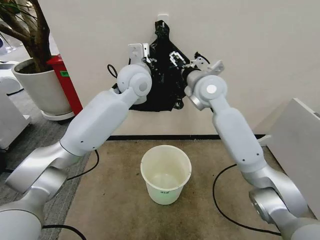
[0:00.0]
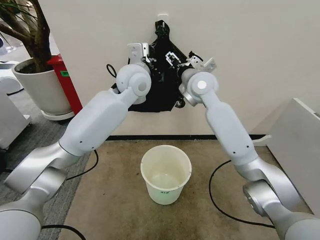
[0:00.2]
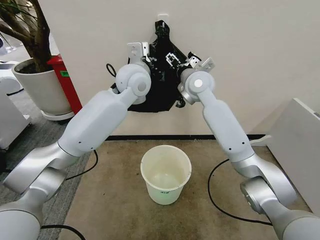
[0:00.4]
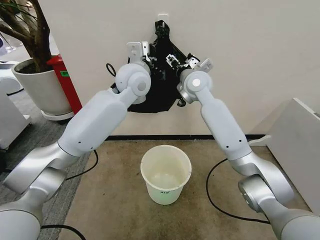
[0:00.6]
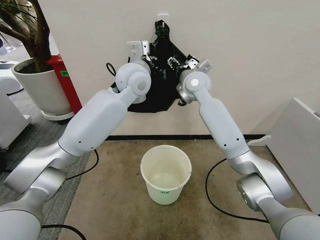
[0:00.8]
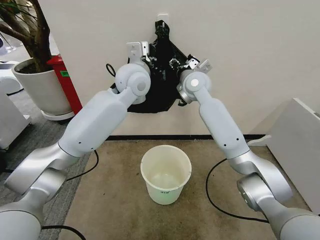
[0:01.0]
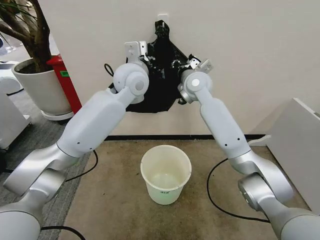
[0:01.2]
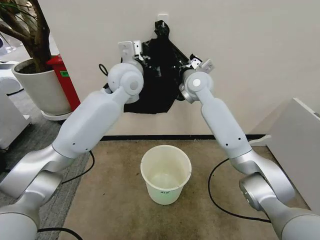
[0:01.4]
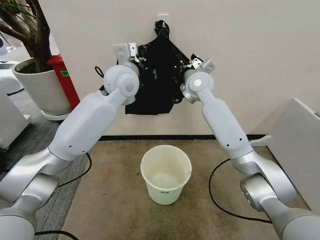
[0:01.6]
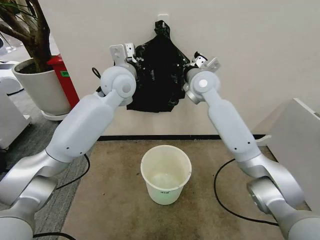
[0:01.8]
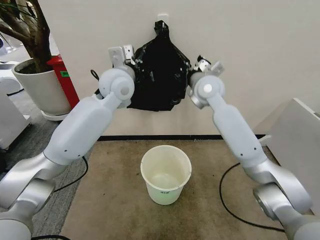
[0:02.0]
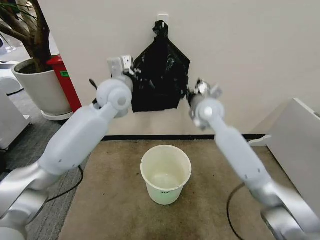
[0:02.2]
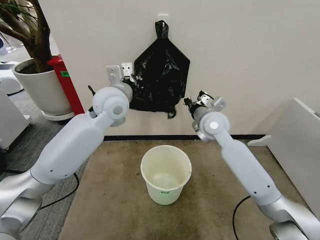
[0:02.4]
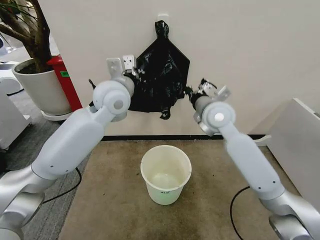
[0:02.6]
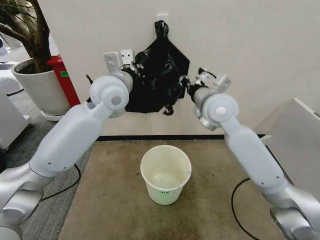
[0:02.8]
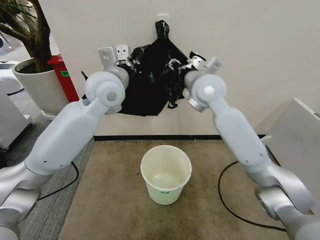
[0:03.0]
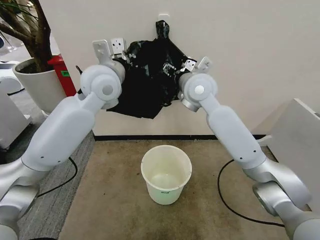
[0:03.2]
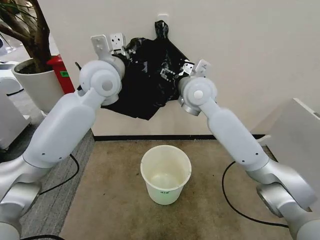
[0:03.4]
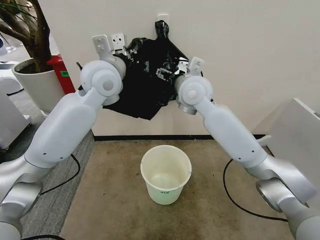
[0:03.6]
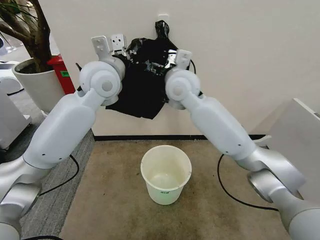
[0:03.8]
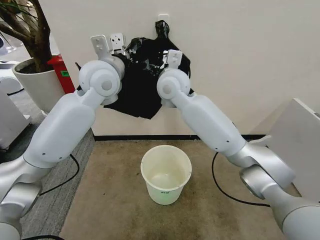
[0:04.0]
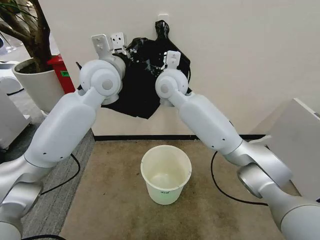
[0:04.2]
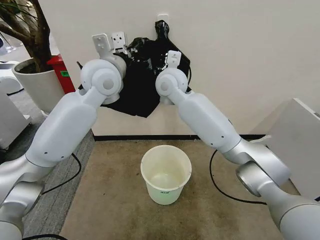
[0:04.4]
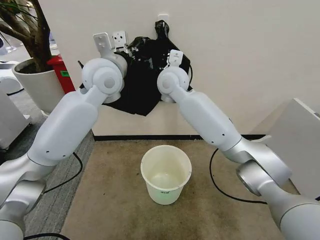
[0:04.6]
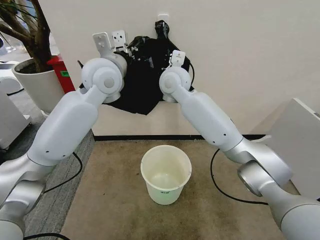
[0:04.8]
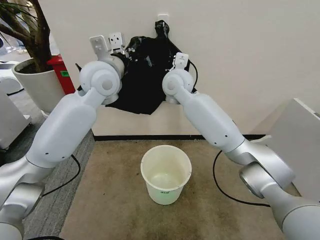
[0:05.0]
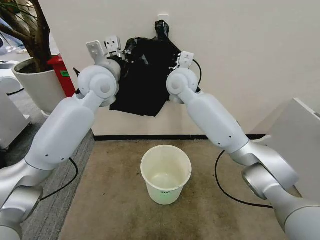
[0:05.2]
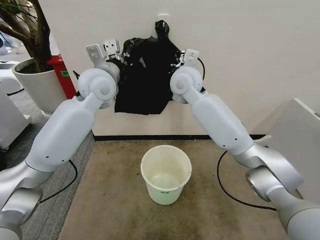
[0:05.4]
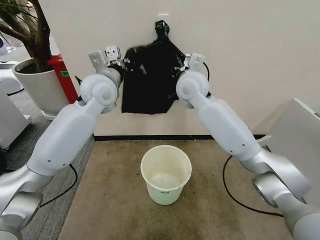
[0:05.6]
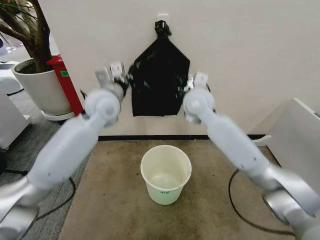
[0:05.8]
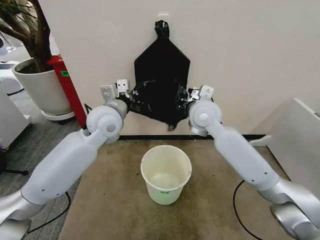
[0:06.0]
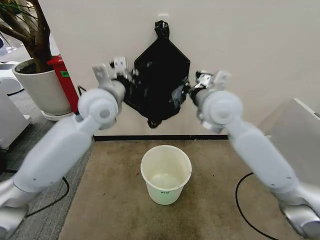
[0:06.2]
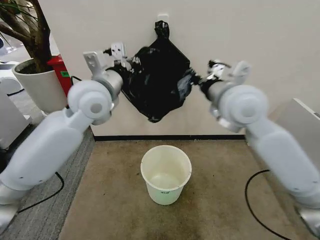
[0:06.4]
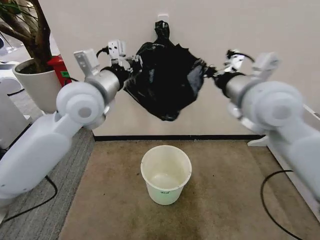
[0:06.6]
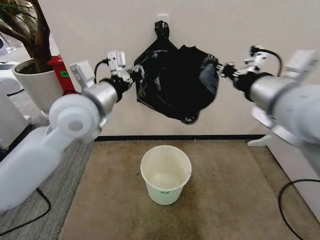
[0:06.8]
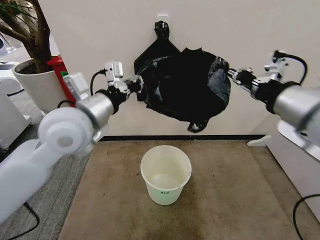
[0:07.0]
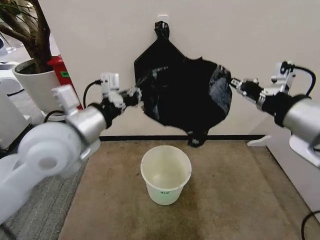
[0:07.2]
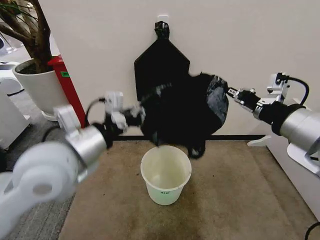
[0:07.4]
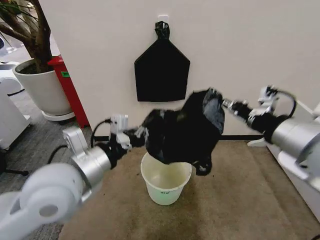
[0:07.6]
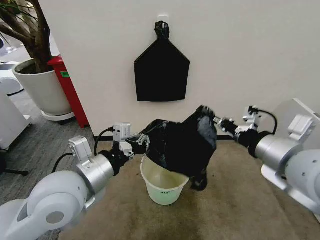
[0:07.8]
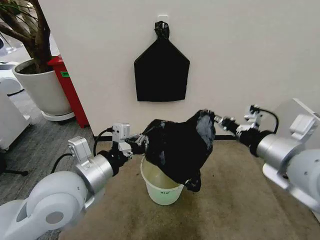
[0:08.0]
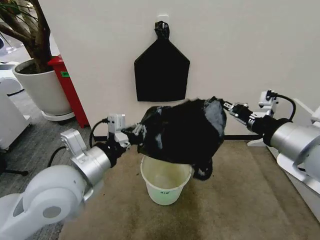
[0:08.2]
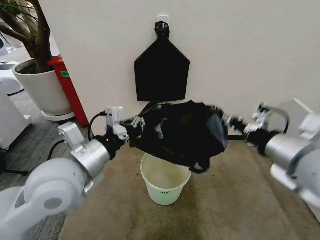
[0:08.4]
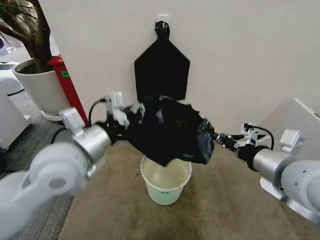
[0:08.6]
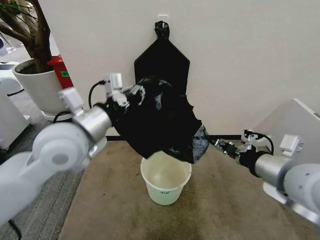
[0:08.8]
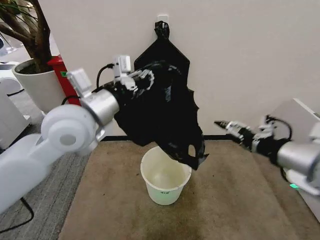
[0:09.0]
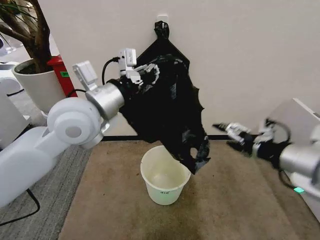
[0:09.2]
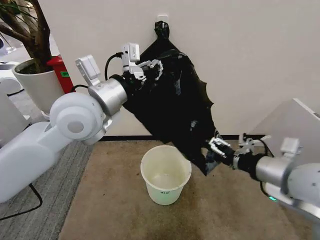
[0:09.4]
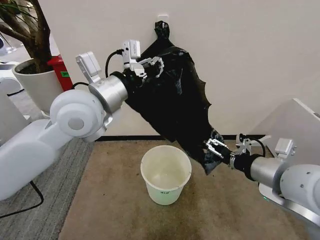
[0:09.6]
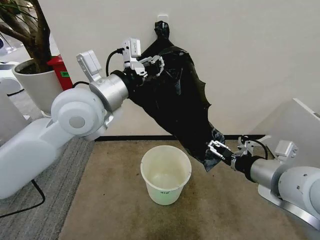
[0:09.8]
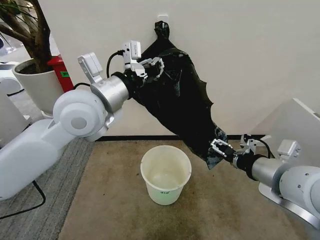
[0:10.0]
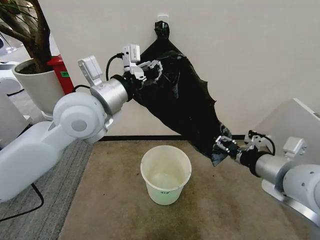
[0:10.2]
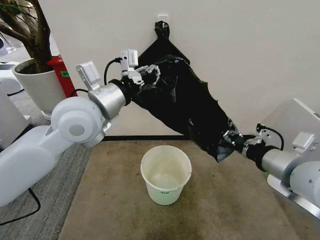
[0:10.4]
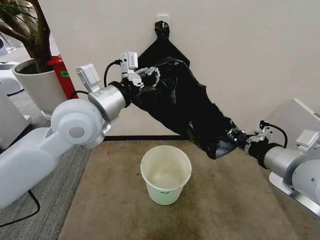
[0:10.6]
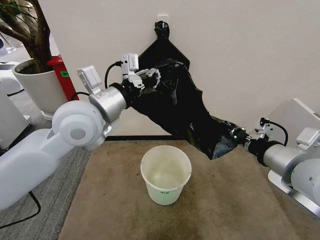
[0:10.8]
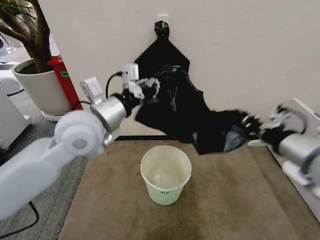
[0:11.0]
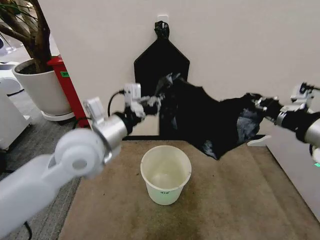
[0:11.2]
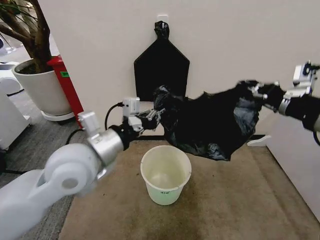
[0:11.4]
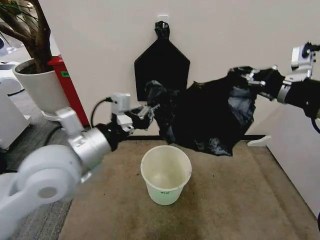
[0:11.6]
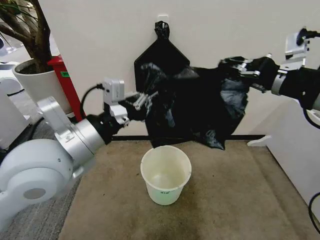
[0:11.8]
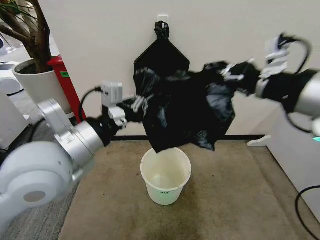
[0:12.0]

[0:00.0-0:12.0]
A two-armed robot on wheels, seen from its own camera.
Task of the whole recording: Place the garbage bag over the trash bin.
0:00.0 to 0:01.6: The right gripper moves forward, some 5 cm, and closes its fingers.
0:01.6 to 0:03.0: The right gripper heads backward, covering approximately 10 cm, and opens its fingers, while the left gripper shifts by about 5 cm.
0:03.0 to 0:04.4: The right gripper heads to the left, covering about 10 cm, and opens and closes again.
0:04.4 to 0:06.0: The left gripper goes some 10 cm downward. Meanwhile the right gripper heads to the right, downward and backward, covering approximately 15 cm, and closes up.
0:06.0 to 0:07.6: The right gripper moves backward and to the right, approximately 25 cm. Meanwhile the left gripper heads backward, covering approximately 20 cm.
0:07.6 to 0:09.0: The right gripper opens up, while the left gripper moves forward and upward, approximately 10 cm.
0:09.0 to 0:10.4: The right gripper opens, then closes once more.
0:10.4 to 0:12.0: The left gripper goes approximately 10 cm backward; the right gripper moves upward, about 15 cm, and closes its fingers.

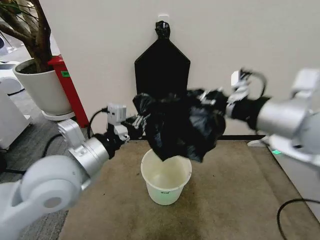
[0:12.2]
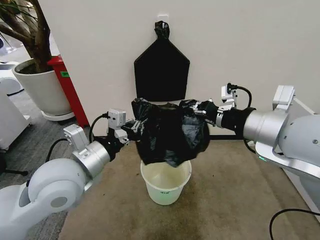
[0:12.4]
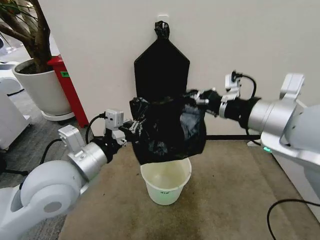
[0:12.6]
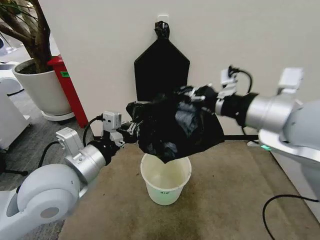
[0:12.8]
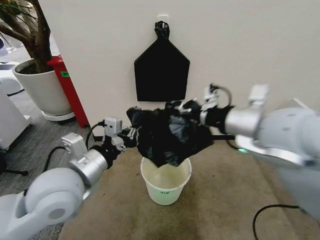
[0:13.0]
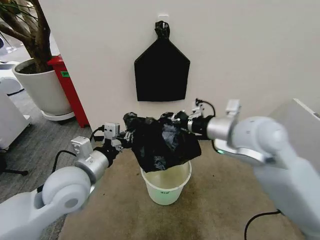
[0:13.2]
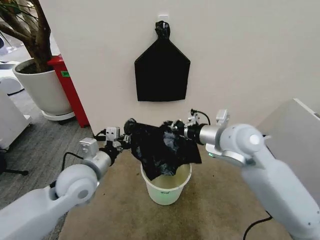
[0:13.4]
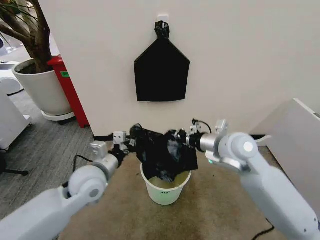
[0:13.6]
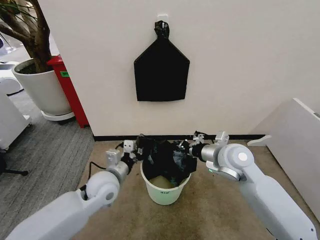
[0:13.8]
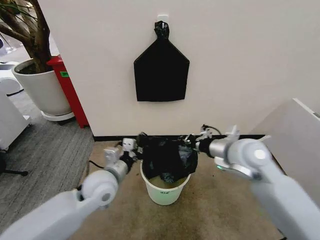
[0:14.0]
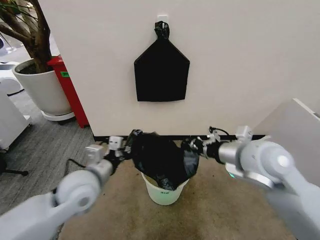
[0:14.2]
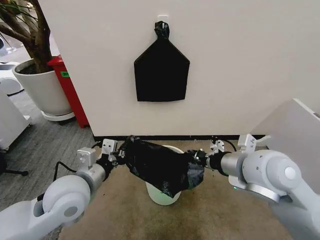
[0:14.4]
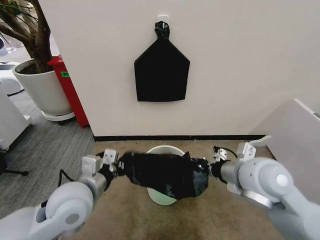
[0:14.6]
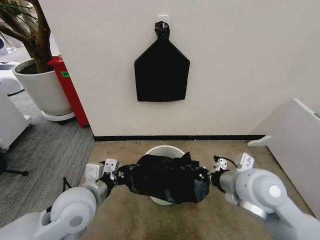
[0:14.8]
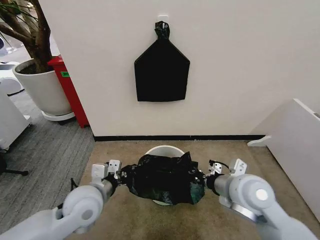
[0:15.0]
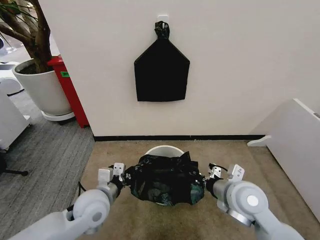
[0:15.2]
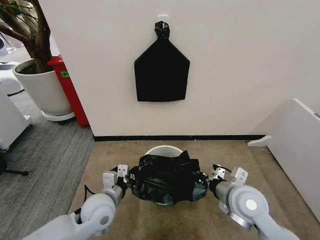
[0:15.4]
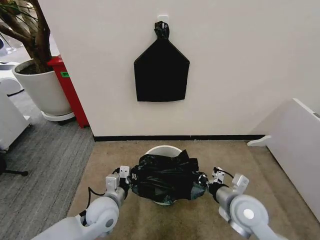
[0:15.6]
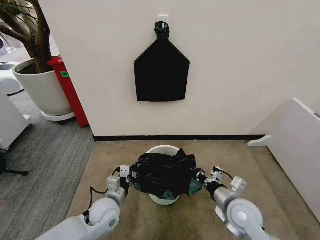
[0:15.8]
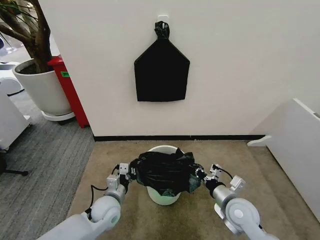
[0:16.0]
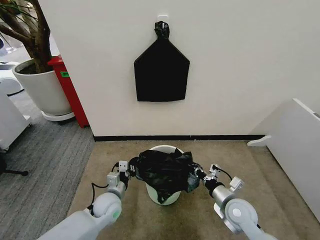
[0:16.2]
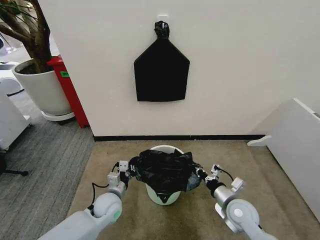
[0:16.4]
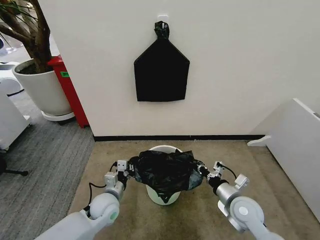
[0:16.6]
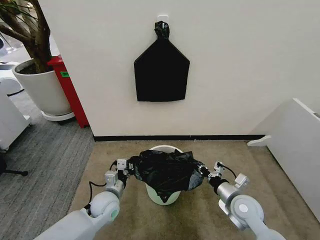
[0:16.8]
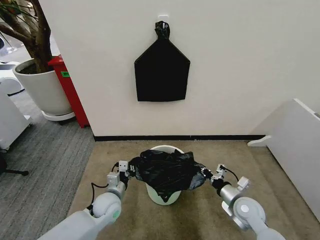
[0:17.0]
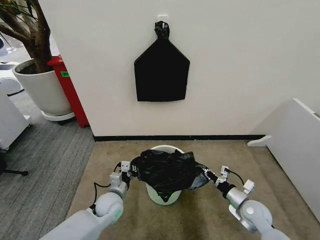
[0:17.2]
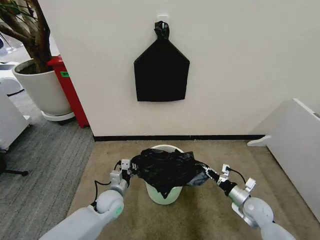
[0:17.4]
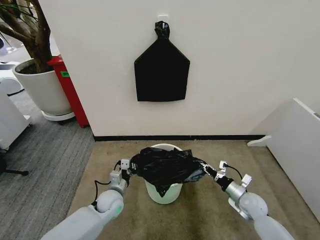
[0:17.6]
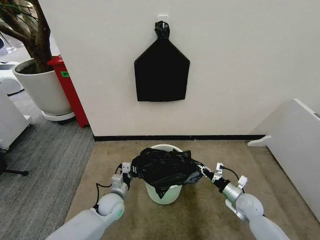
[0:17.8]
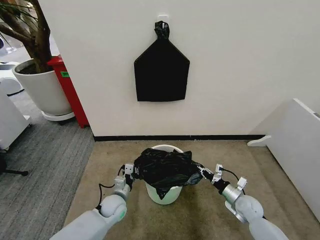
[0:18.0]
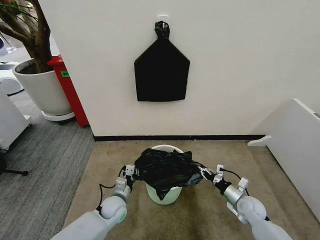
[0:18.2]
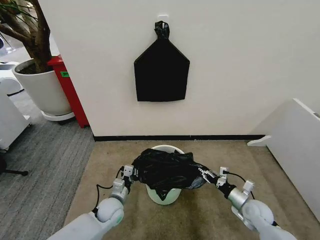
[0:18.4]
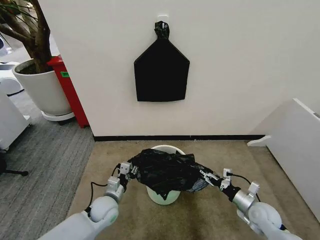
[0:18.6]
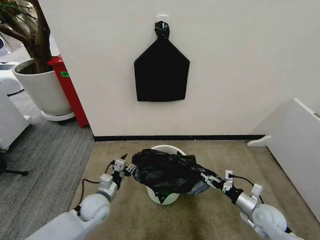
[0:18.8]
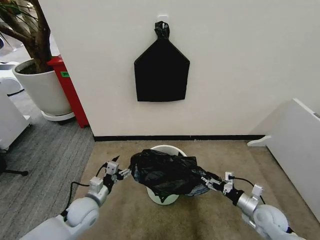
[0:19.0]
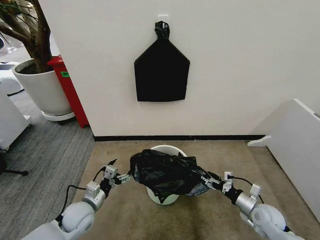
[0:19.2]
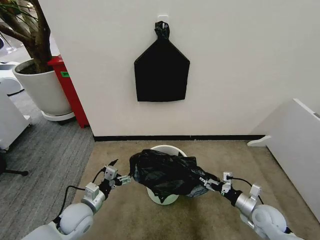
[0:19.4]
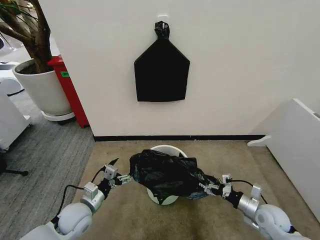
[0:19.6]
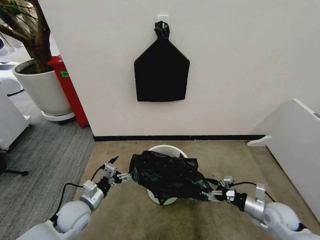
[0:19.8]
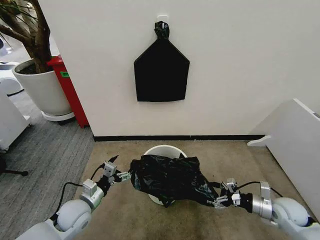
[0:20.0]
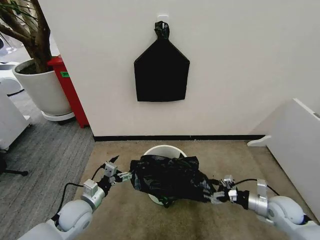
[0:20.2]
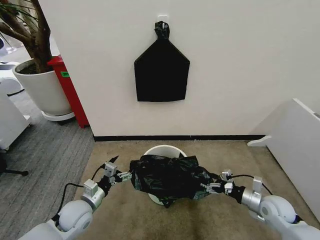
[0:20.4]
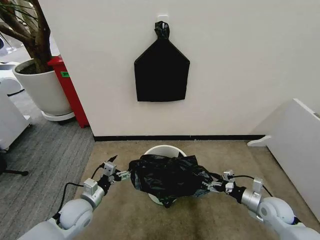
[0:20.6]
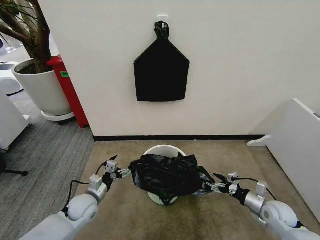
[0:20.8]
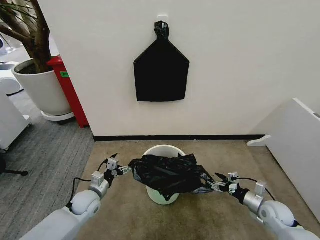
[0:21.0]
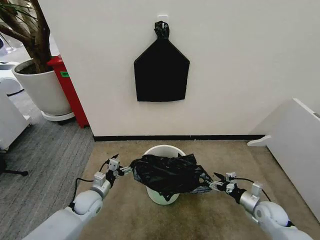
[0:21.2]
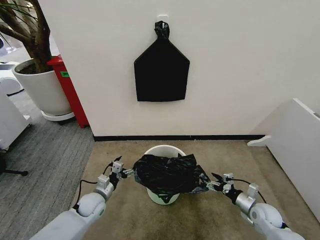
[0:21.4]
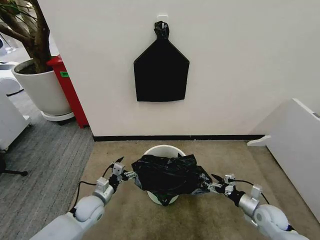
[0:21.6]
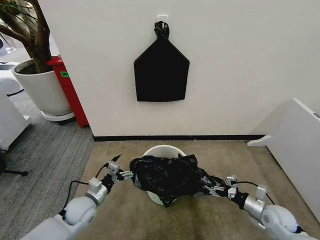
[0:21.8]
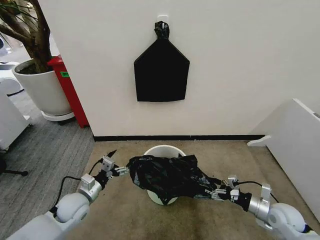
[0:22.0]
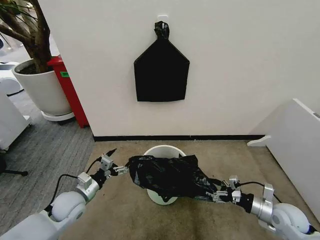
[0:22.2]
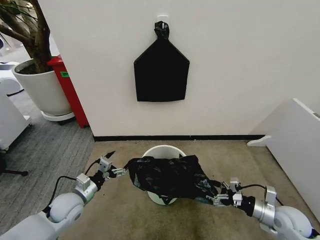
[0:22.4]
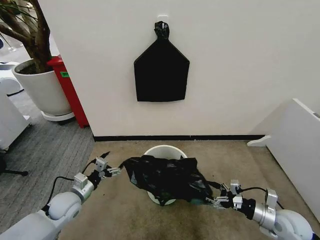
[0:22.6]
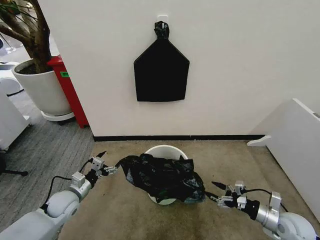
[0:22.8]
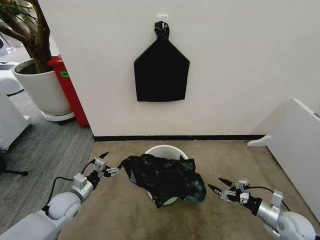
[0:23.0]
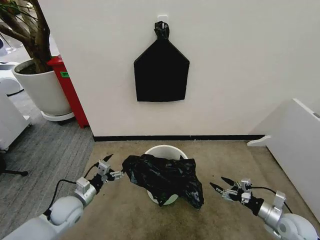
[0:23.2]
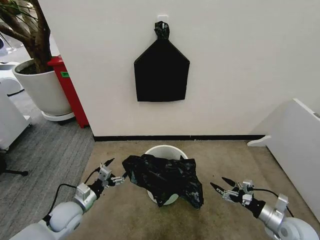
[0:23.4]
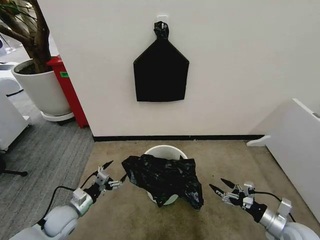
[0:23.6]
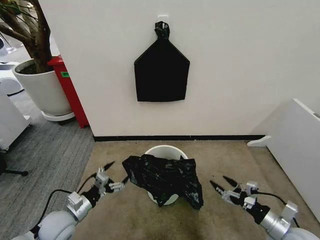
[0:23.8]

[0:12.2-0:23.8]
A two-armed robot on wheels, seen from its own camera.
Task of the whole recording: Place the garbage bag over the trash bin.
0:12.2 to 0:13.6: The grippers both shift downward and forward by approximately 20 cm.
0:13.6 to 0:15.0: The left gripper moves up and down over roughly 10 cm, changing direction 2 times. Meanwhile the right gripper goes roughly 10 cm backward.
0:15.0 to 0:16.6: Both grippers travel together downward, approximately 15 cm.
0:16.6 to 0:18.0: The right gripper heads downward, to the right and forward, covering some 15 cm; the left gripper heads downward, covering roughly 10 cm.
0:18.0 to 0:19.4: The left gripper travels to the left, upward and backward by some 15 cm, and opens up, while the right gripper moves upward and backward, roughly 10 cm, and opens up.
0:19.4 to 0:21.0: The left gripper heads forward, covering some 5 cm; the right gripper ends up some 5 cm from where it was.
0:21.0 to 0:22.4: The two grippers go some 5 cm upward.
0:22.4 to 0:23.8: Both grippers travel together backward, approximately 5 cm.
